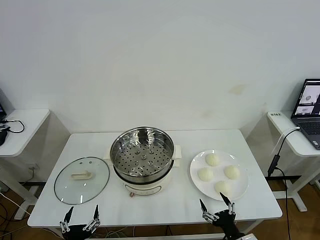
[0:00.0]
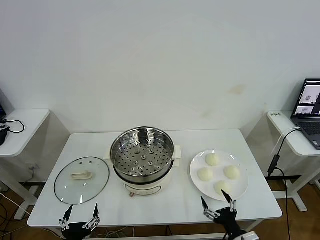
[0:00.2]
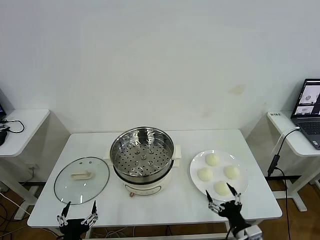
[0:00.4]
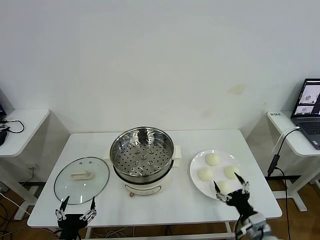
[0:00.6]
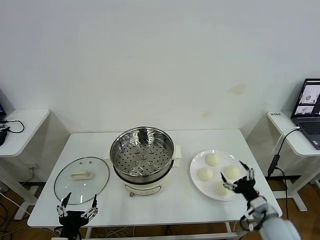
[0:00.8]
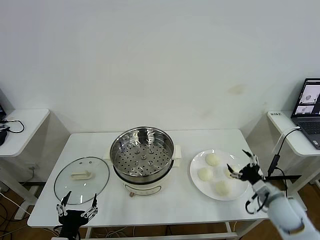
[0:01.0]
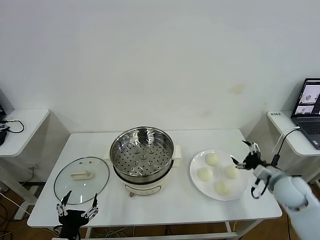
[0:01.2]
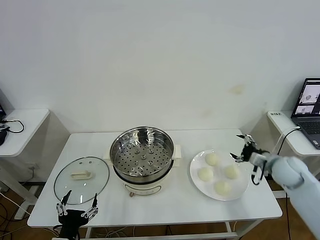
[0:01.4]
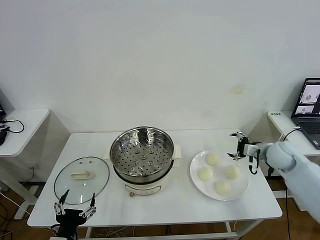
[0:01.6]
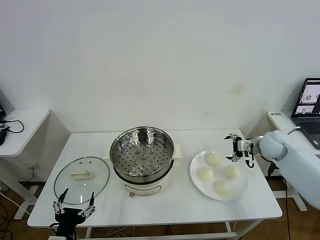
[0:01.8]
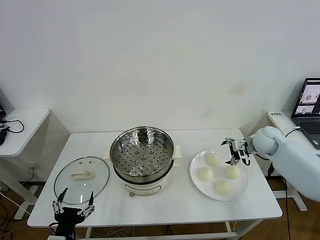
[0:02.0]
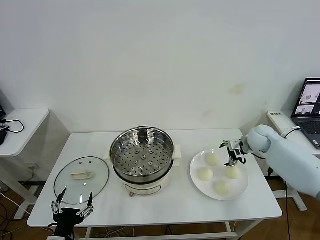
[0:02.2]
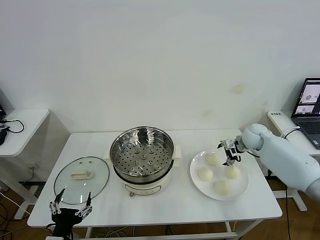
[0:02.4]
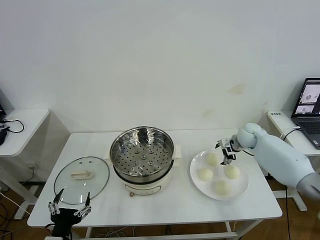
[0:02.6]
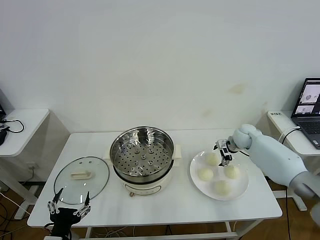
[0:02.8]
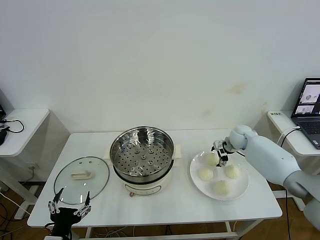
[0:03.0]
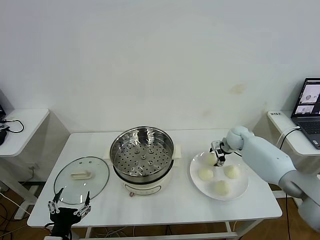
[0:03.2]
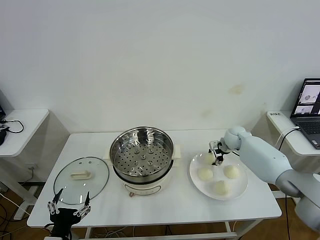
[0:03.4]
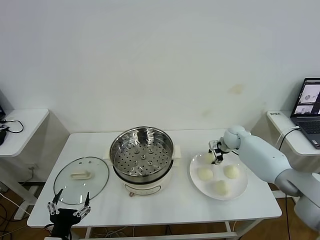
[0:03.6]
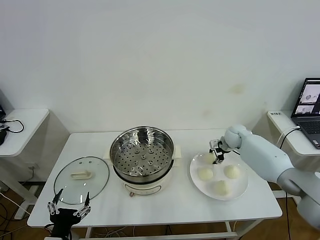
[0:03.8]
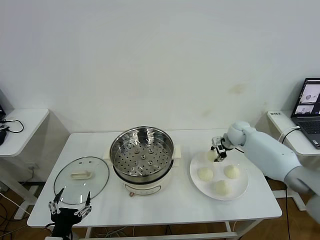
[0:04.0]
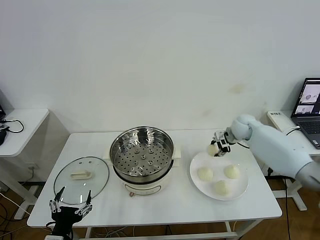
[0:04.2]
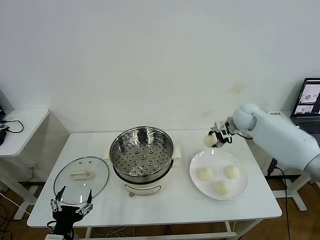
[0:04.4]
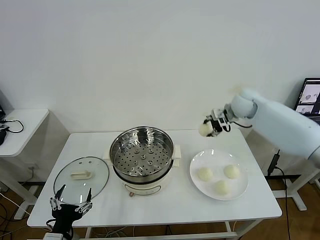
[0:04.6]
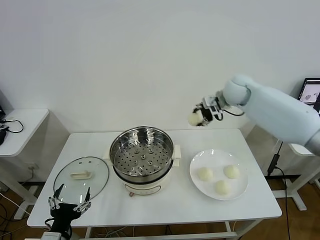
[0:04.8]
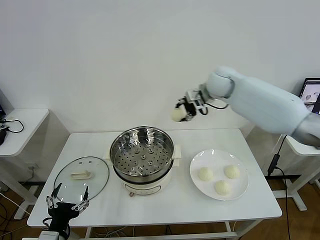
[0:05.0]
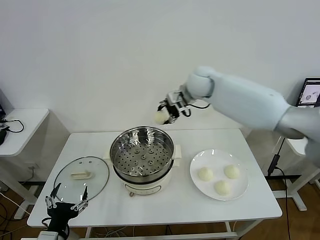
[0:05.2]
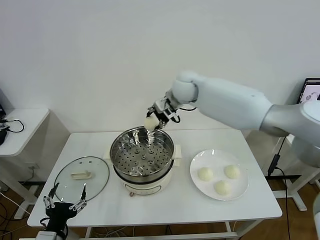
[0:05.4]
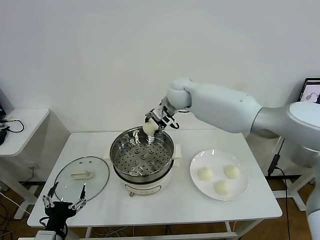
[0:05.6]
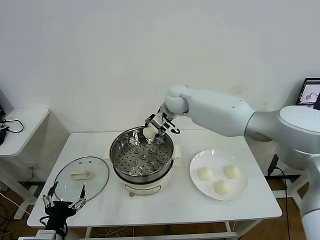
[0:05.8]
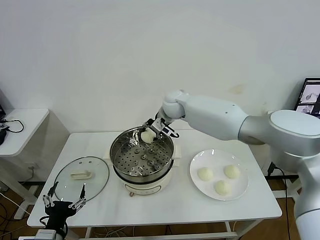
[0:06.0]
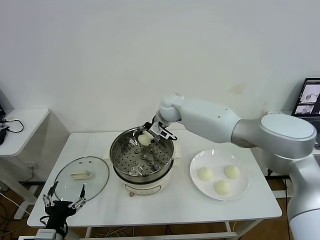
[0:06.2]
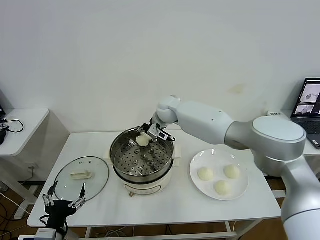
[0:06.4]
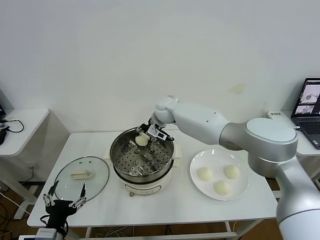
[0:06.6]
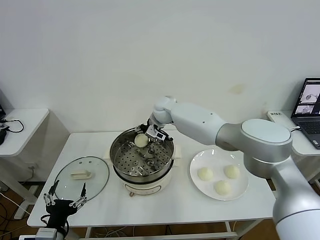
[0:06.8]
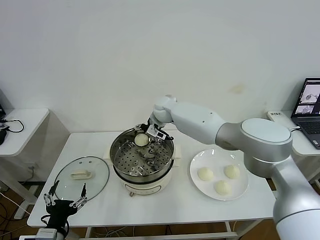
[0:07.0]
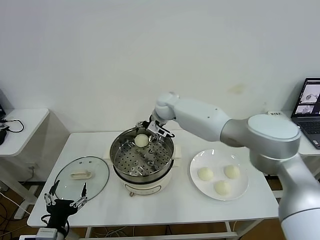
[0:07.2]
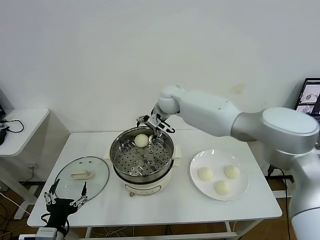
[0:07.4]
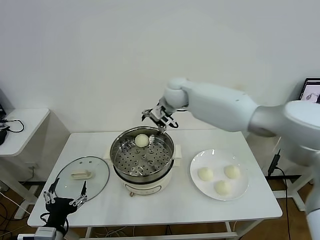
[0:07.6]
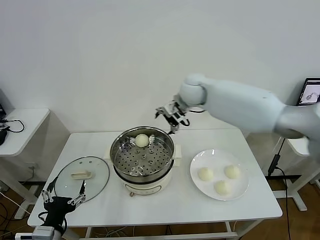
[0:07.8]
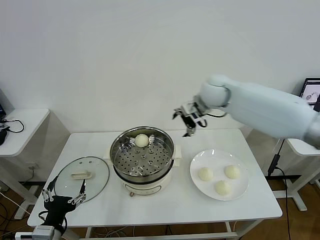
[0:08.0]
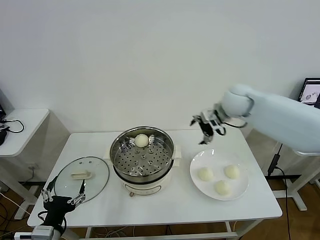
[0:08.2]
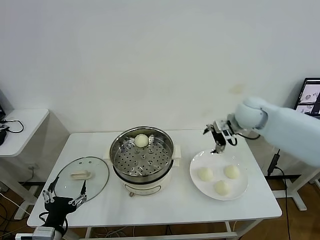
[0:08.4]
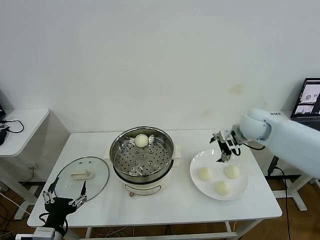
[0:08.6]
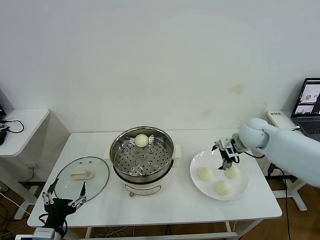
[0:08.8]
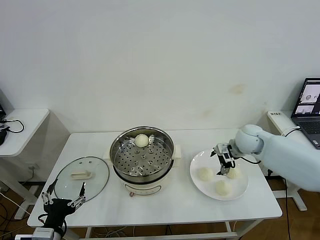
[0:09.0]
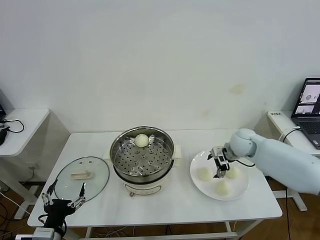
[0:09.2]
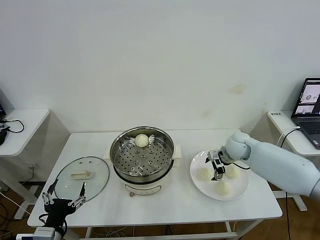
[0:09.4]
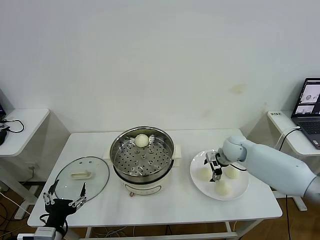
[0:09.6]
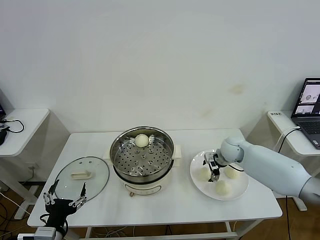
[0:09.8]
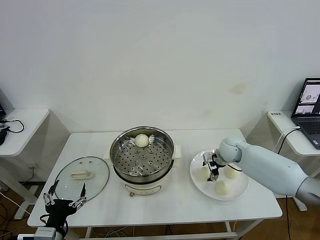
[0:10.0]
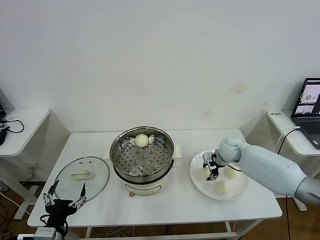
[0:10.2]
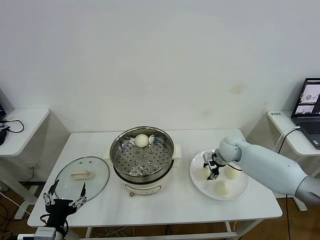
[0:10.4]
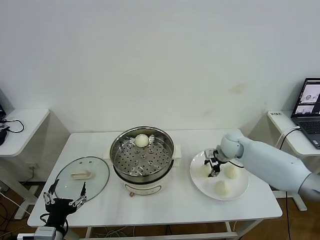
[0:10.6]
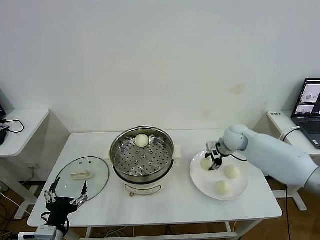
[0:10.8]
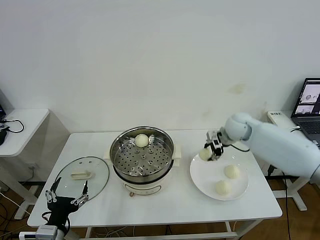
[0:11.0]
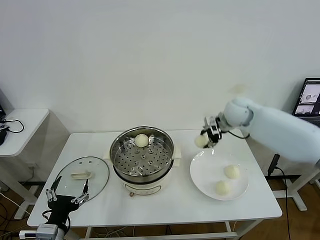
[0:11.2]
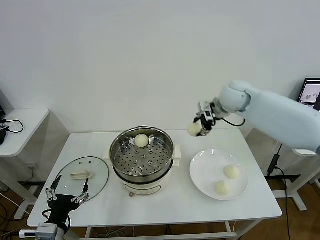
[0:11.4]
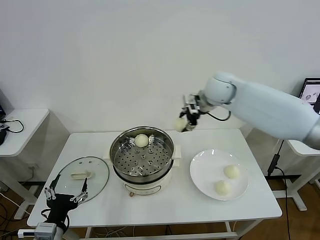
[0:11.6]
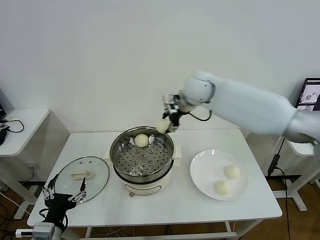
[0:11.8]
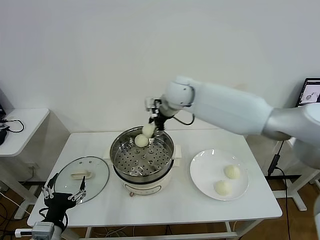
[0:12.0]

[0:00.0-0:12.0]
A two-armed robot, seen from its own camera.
Task of the whole recording: take steamed baozi put them in steamer then cover it.
Step, 0:00.0 to 0:03.6: Grasp the baozi in the plate with right gripper.
Step, 0:03.8 to 0:07.2: Place the baozi on the steamer with right gripper.
Step, 0:07.4 to 0:10.2: Grasp the baozi in the plate with right gripper.
0:01.6 to 0:03.0: The right gripper shifts about 15 cm forward, to the left and downward.
0:03.0 to 0:04.4: The right gripper goes about 15 cm upward, and closes up.
0:04.4 to 0:06.0: The right gripper moves to the left, approximately 25 cm.
0:06.0 to 0:07.6: The right gripper is displaced upward by approximately 10 cm, and opens its fingers.
0:07.6 to 0:09.0: The right gripper shifts roughly 25 cm to the right and downward.
0:09.0 to 0:10.4: The right gripper travels downward by about 5 cm, and closes its fingers.
0:10.4 to 0:12.0: The right gripper is displaced to the left and upward by about 30 cm.

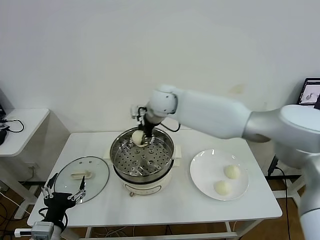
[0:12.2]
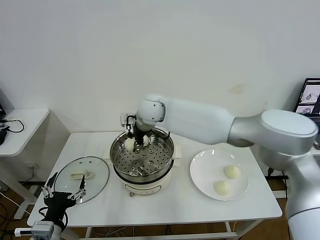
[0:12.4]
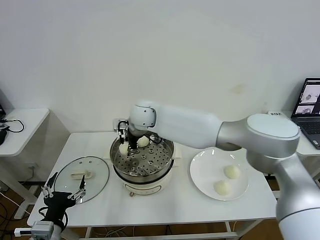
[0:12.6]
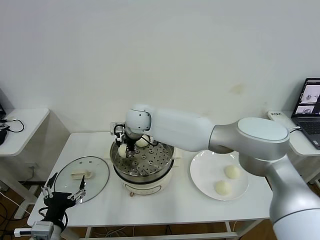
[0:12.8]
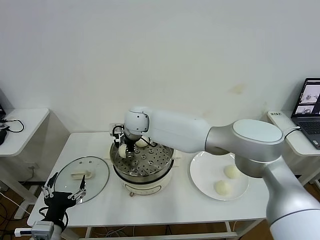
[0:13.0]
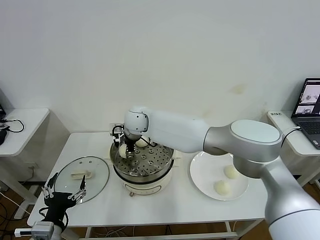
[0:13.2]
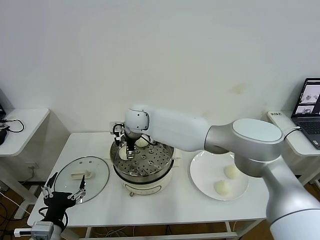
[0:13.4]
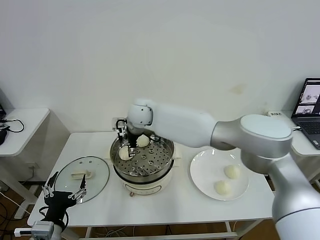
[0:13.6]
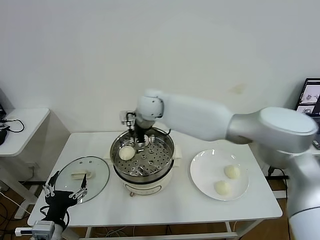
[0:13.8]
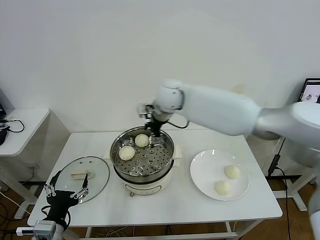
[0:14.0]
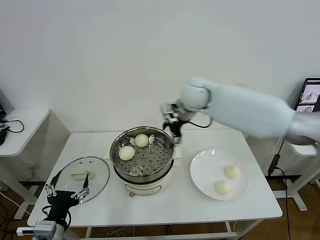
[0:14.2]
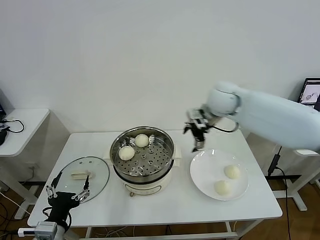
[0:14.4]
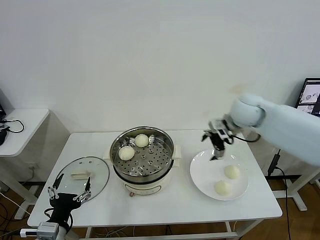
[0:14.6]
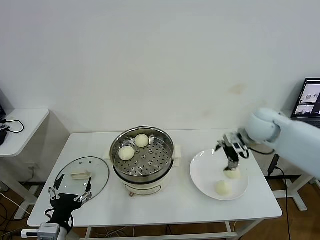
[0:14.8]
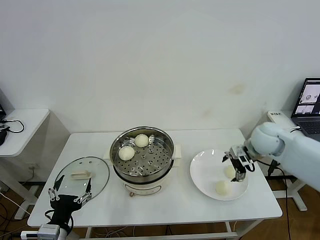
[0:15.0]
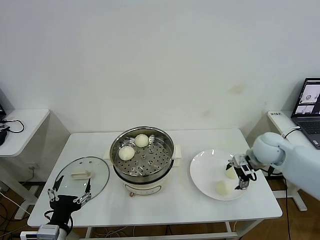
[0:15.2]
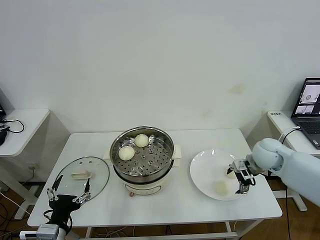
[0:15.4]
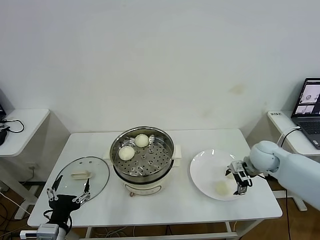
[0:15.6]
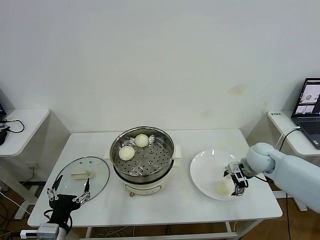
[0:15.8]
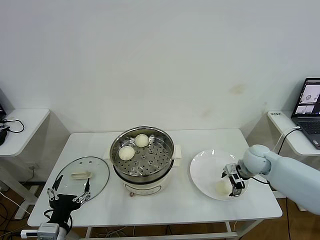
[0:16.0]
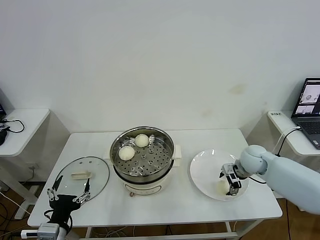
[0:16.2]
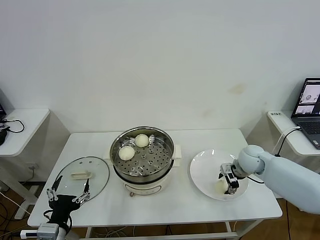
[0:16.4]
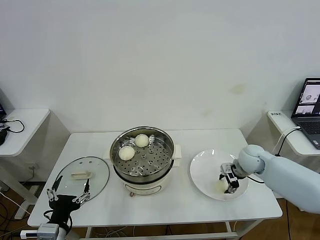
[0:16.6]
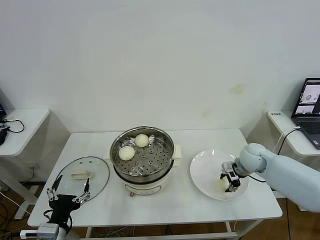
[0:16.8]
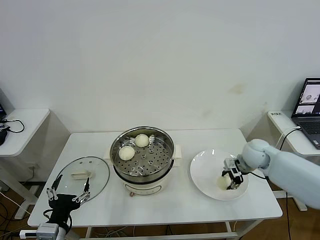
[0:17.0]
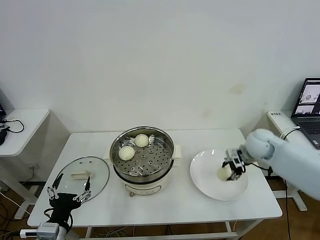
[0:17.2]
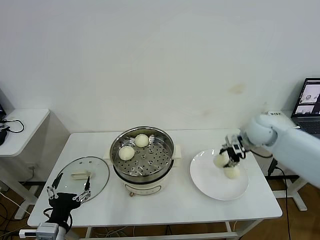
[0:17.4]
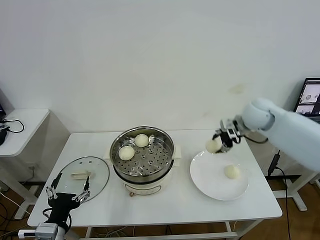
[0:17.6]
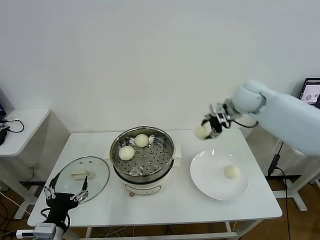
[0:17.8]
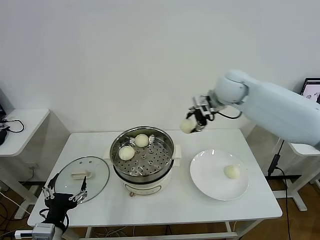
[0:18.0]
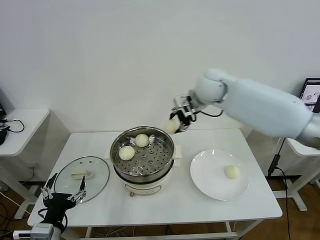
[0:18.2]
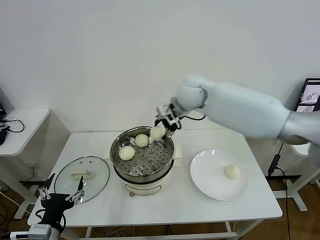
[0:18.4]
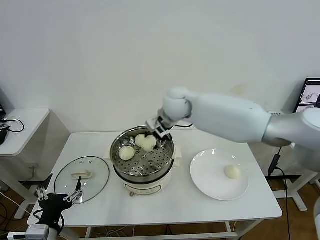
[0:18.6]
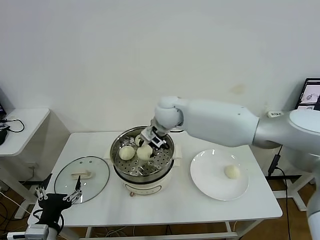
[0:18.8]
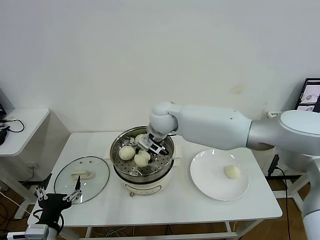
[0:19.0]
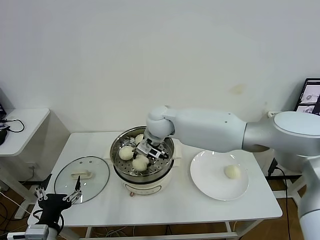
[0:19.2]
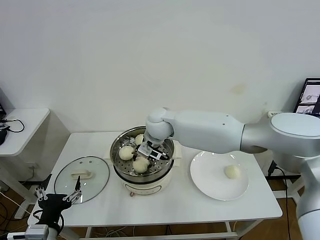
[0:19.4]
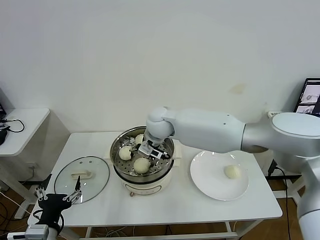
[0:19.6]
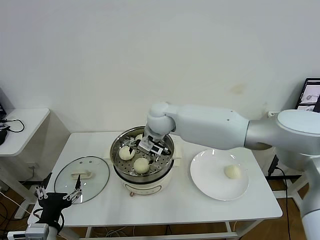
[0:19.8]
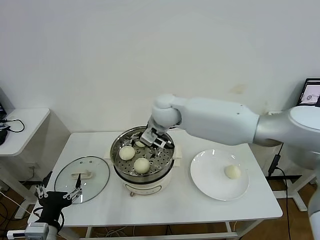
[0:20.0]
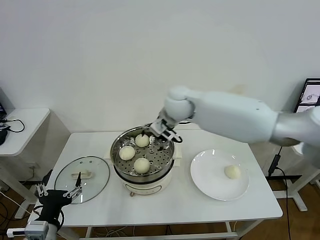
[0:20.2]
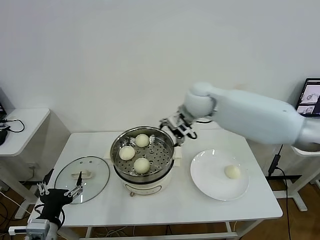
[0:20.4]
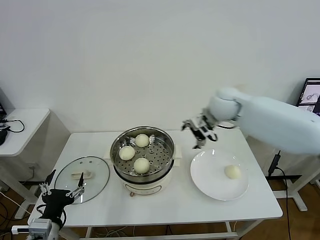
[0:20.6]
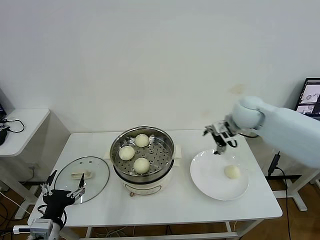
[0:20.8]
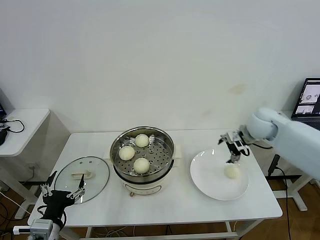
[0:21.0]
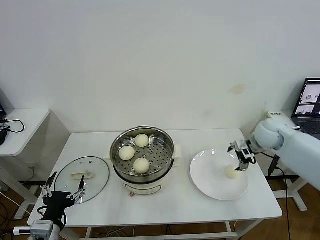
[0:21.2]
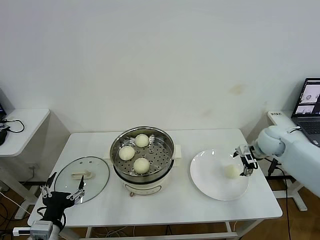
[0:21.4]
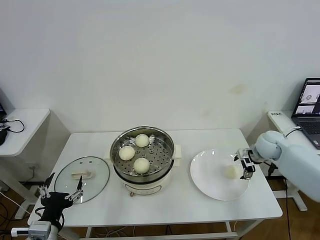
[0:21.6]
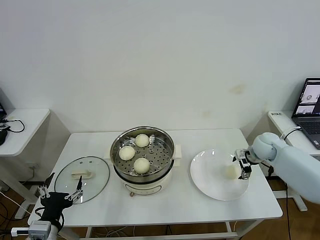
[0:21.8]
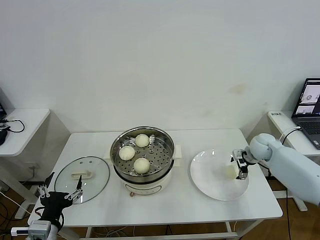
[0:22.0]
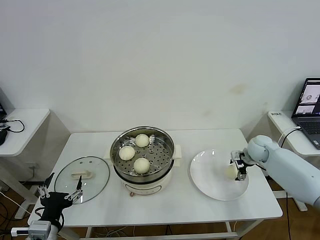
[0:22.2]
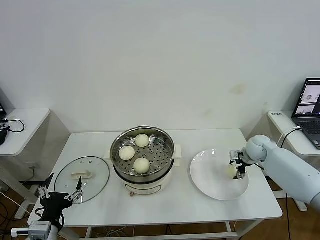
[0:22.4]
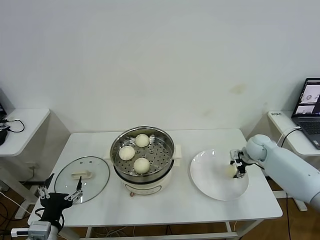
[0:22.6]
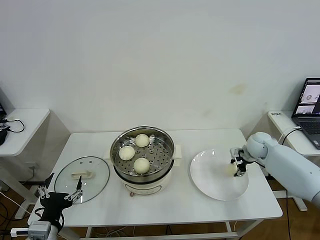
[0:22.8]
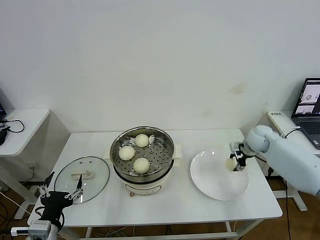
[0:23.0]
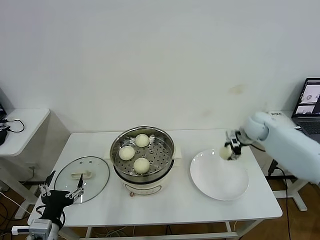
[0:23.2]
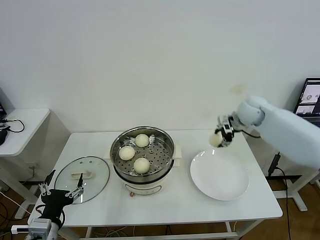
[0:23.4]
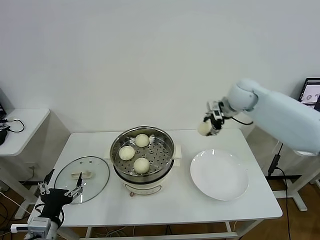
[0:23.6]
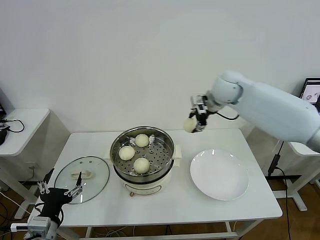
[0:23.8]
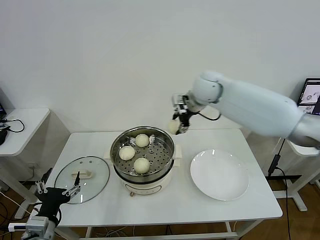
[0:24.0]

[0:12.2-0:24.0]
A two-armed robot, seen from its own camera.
Task of the whole recording: take steamed baozi put them in steamer then cover it.
Step, 0:13.8 to 0:16.6: Grasp the baozi in the plate with right gripper.
Step, 0:17.0 to 0:19.8: Place the baozi on the steamer with right gripper.
Step, 0:20.0 to 0:22.8: Grasp the baozi in the plate with right gripper.
0:12.2 to 0:13.6: The right gripper opens its fingers.
0:13.6 to 0:15.2: The right gripper heads to the right, covering some 40 cm.
0:15.2 to 0:16.6: The right gripper is displaced downward by about 5 cm, and closes its fingers.
0:16.6 to 0:18.2: The right gripper goes approximately 30 cm upward and to the left.
0:18.2 to 0:19.6: The right gripper heads to the left and downward, covering approximately 15 cm, and opens its fingers.
0:19.6 to 0:21.0: The right gripper moves to the right, roughly 35 cm.
0:21.0 to 0:22.6: The right gripper heads downward, covering roughly 15 cm, and closes up.
0:22.6 to 0:24.0: The right gripper shifts roughly 35 cm to the left and upward.
